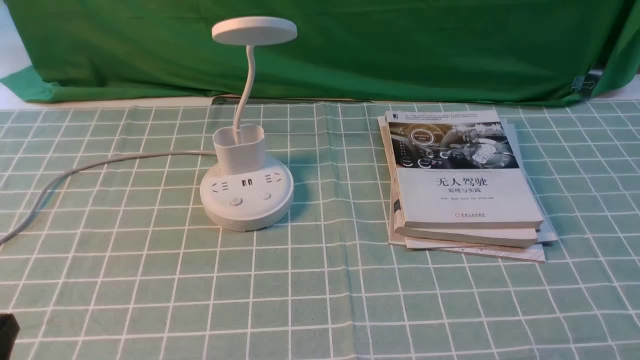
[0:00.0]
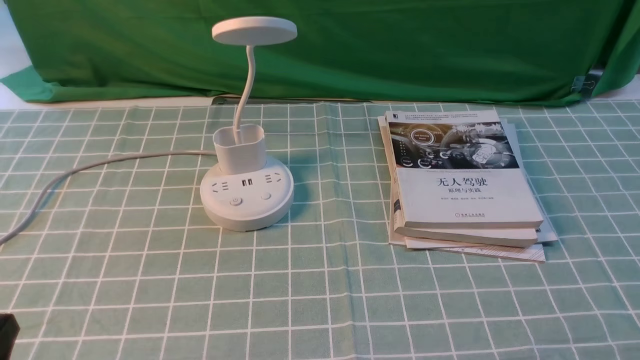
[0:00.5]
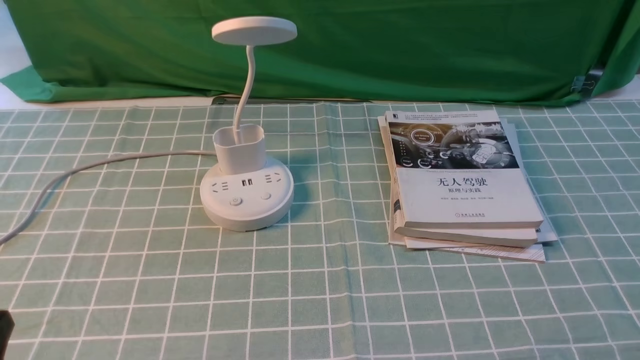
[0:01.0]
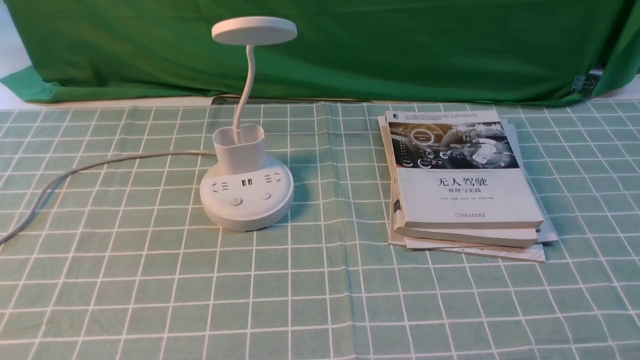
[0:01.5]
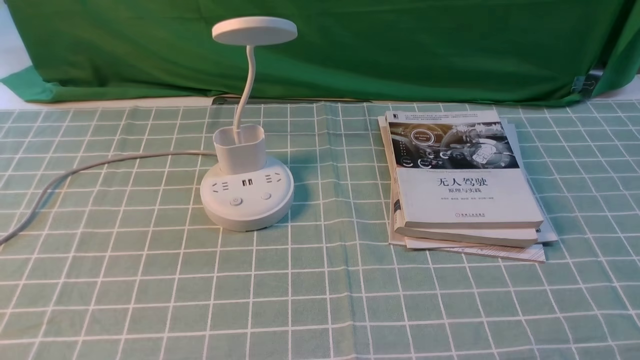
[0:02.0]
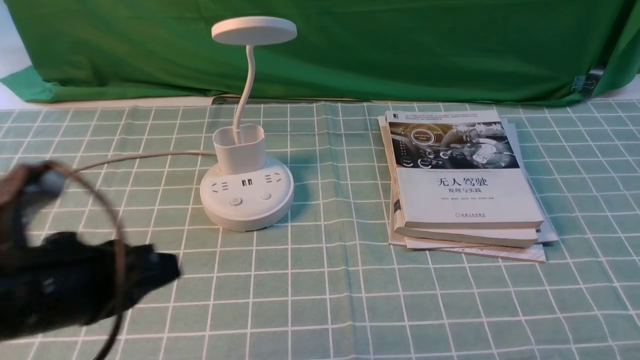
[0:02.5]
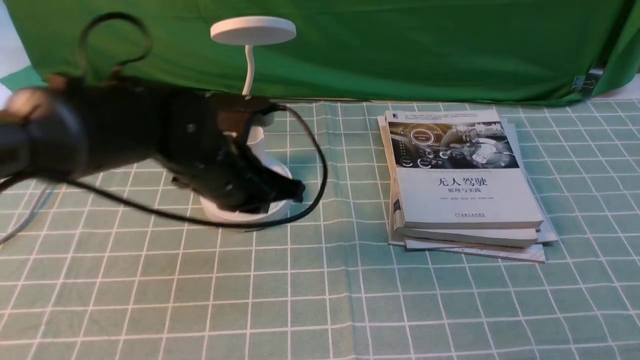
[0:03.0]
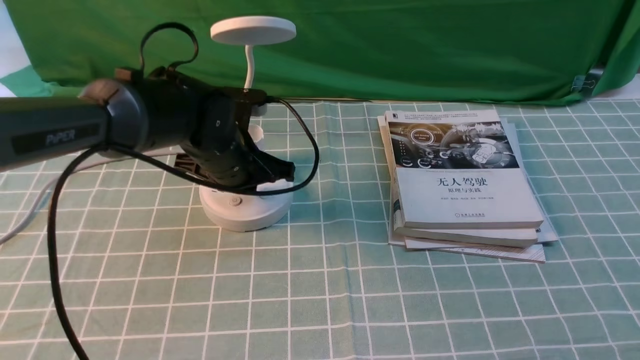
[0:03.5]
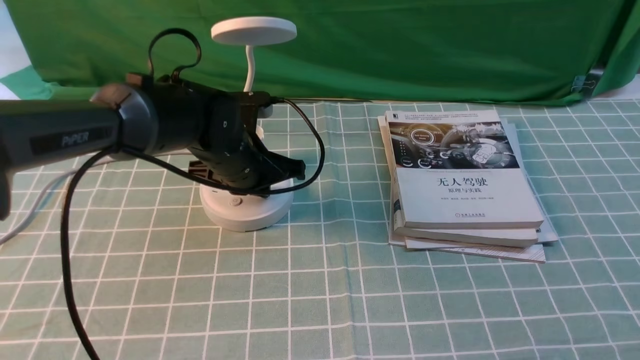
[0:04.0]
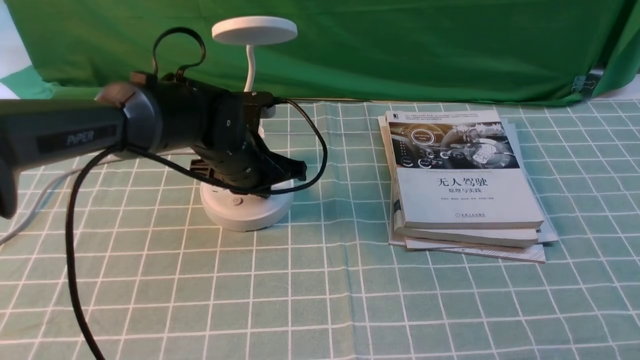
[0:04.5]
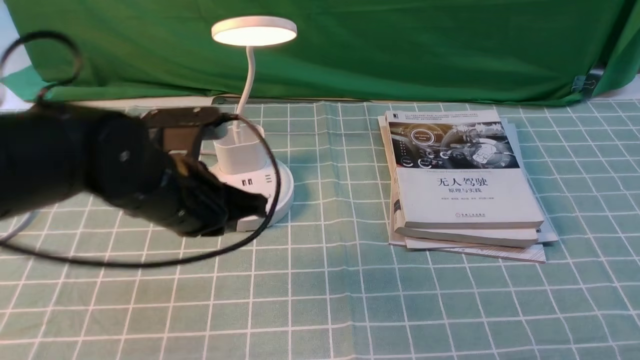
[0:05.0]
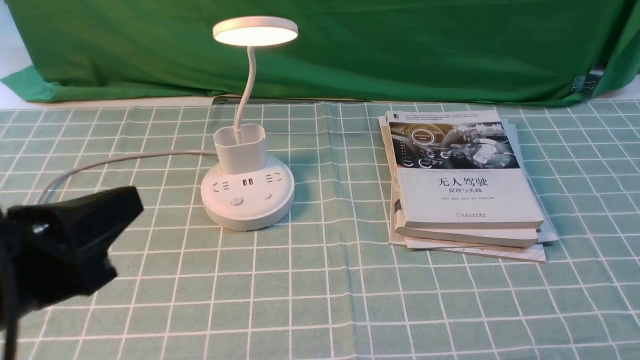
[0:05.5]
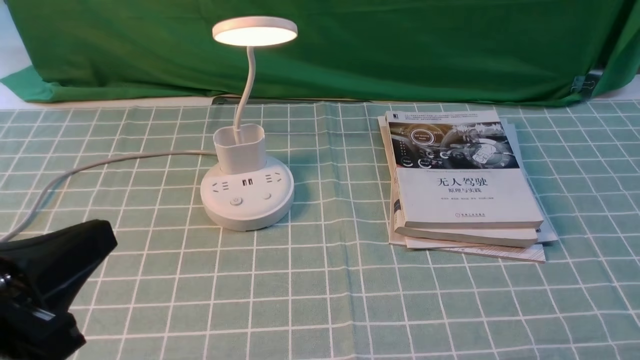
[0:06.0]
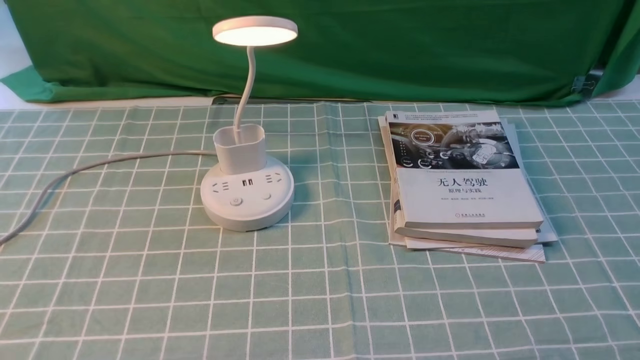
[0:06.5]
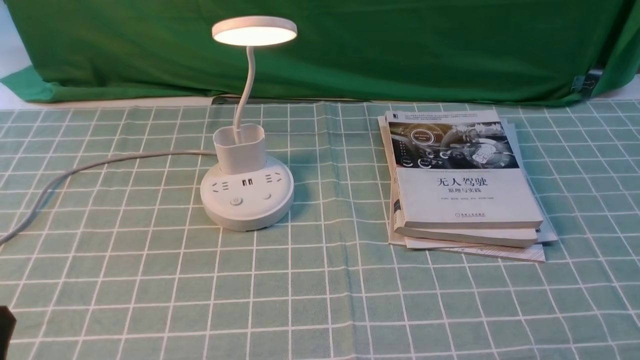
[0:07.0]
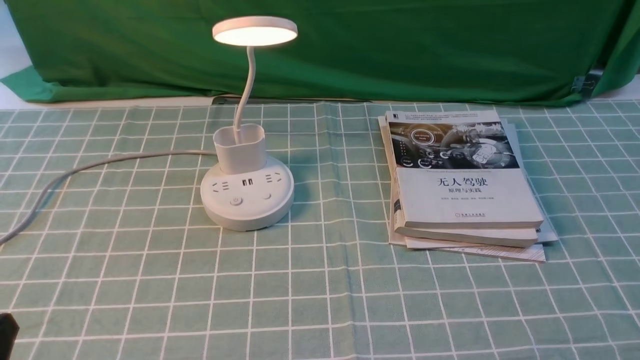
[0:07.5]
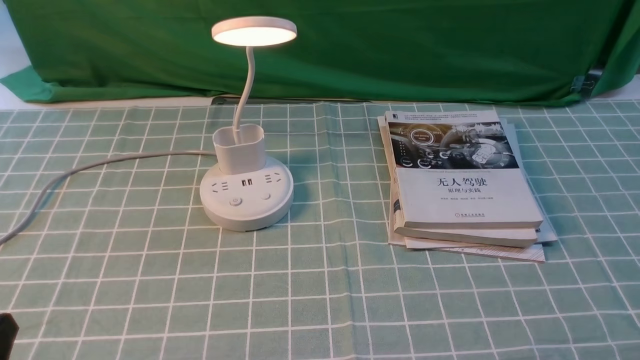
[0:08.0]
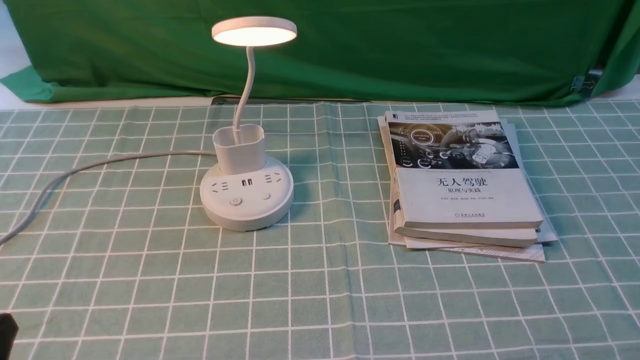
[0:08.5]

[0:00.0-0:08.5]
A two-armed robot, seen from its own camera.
Step, 0:00.0 to 0:04.5: use the left arm to press the button switch on the lamp holder.
0:02.0 to 0:04.0: The left gripper moves forward, to the right and downward, some 40 cm, and opens its fingers.
0:04.0 to 0:06.5: The left gripper moves backward and to the left, about 35 cm.
